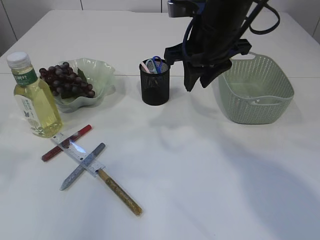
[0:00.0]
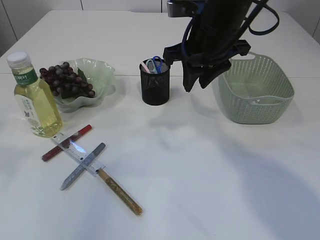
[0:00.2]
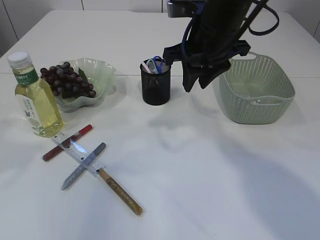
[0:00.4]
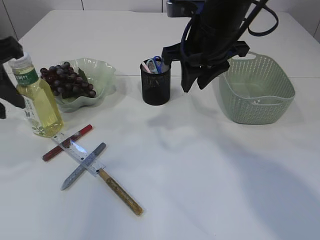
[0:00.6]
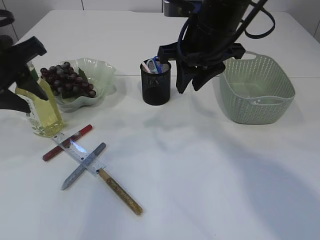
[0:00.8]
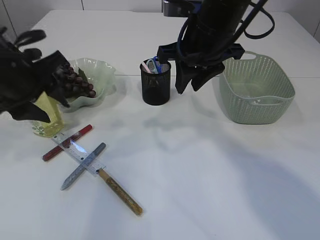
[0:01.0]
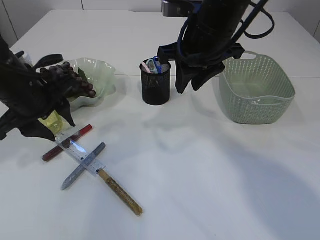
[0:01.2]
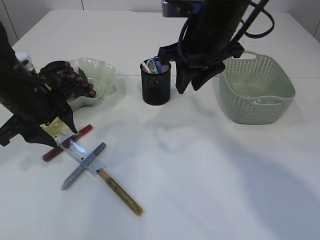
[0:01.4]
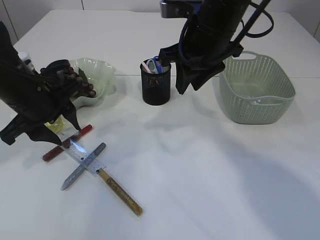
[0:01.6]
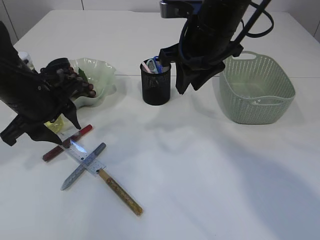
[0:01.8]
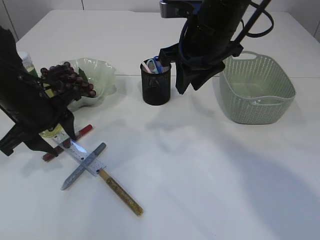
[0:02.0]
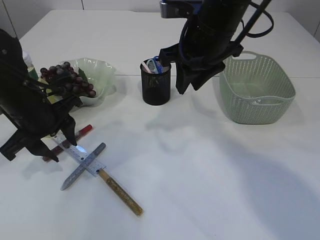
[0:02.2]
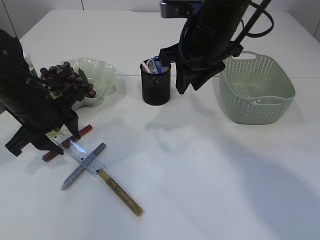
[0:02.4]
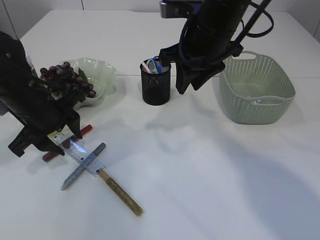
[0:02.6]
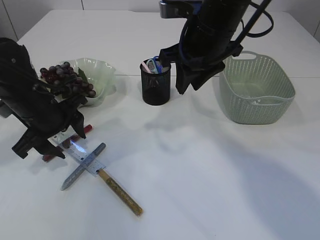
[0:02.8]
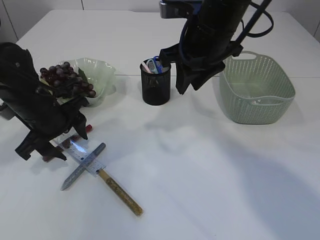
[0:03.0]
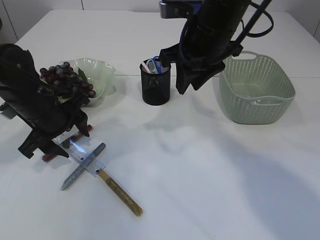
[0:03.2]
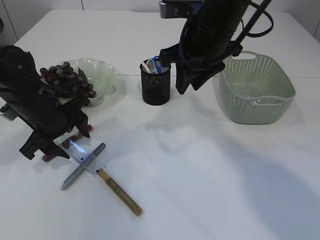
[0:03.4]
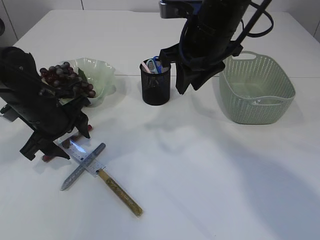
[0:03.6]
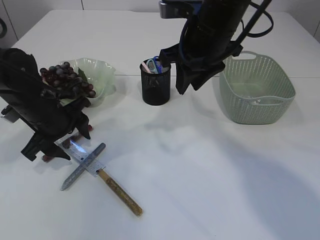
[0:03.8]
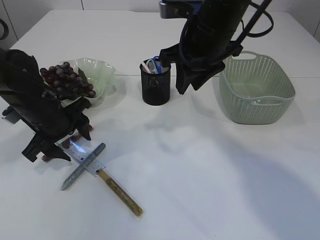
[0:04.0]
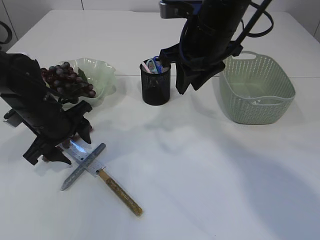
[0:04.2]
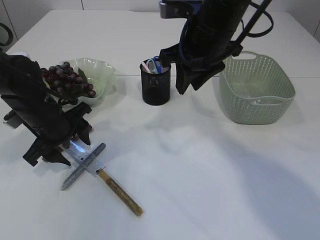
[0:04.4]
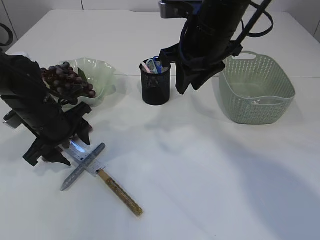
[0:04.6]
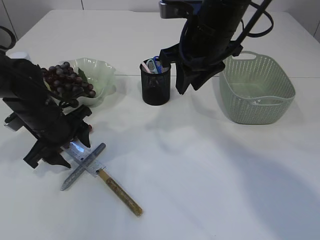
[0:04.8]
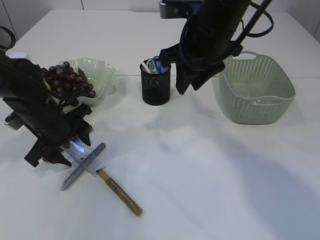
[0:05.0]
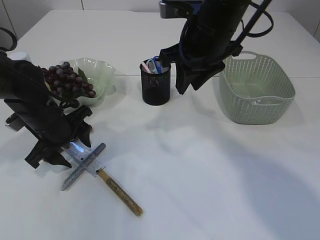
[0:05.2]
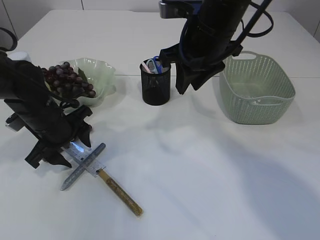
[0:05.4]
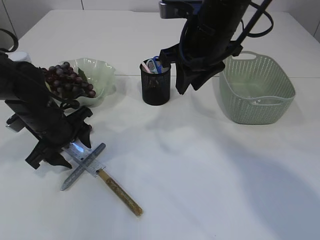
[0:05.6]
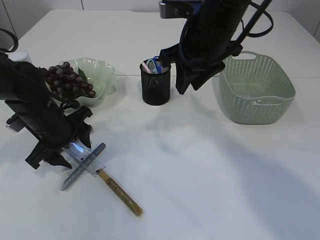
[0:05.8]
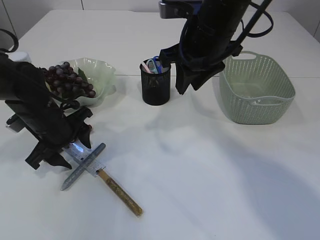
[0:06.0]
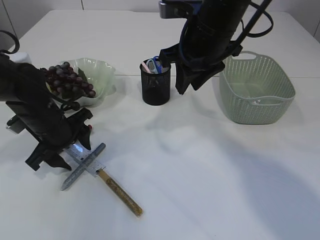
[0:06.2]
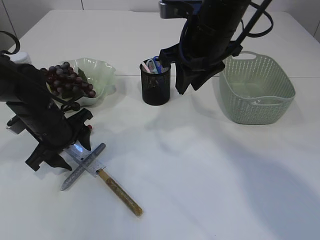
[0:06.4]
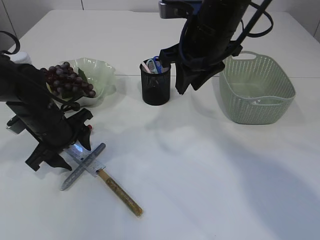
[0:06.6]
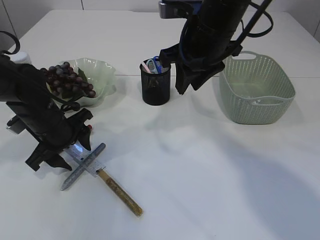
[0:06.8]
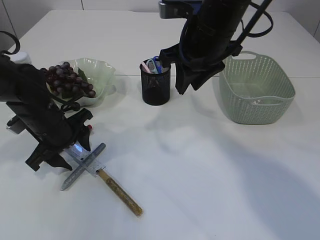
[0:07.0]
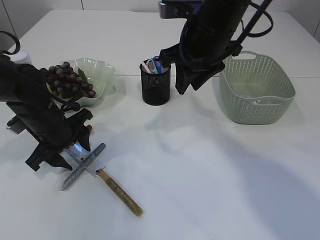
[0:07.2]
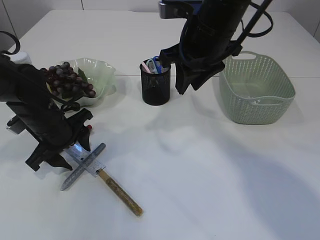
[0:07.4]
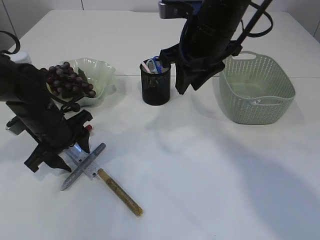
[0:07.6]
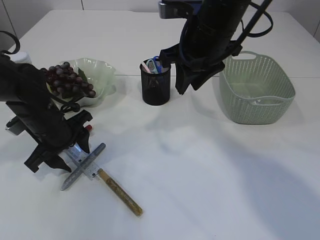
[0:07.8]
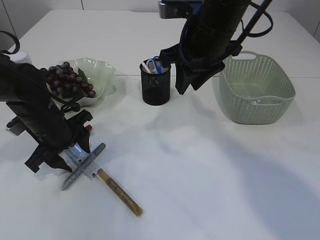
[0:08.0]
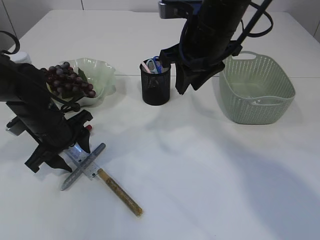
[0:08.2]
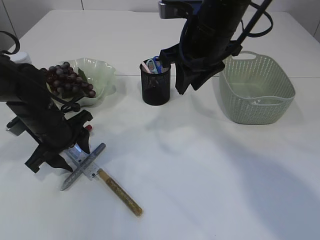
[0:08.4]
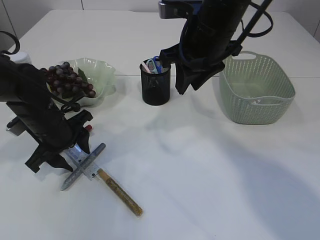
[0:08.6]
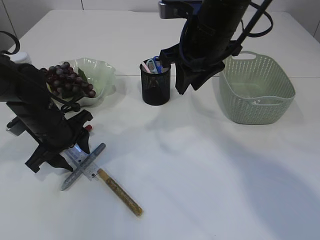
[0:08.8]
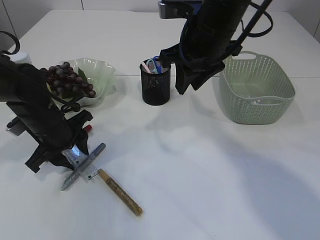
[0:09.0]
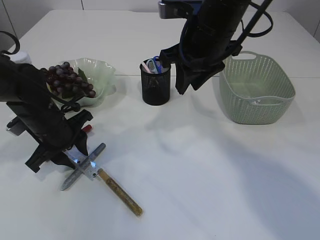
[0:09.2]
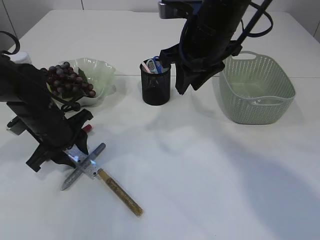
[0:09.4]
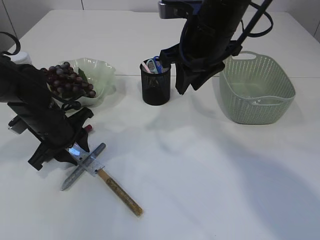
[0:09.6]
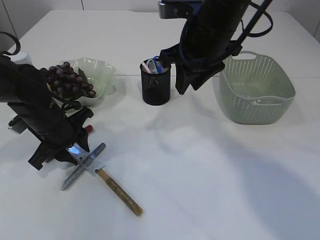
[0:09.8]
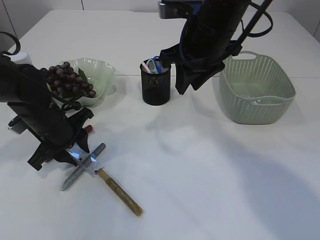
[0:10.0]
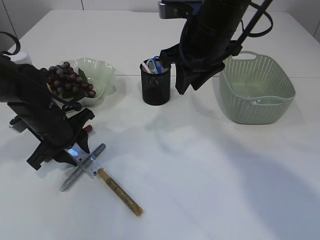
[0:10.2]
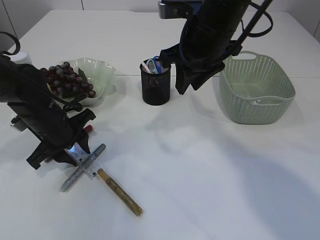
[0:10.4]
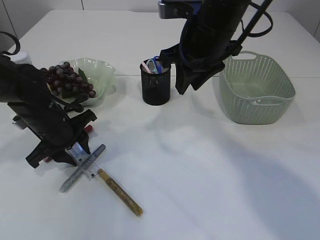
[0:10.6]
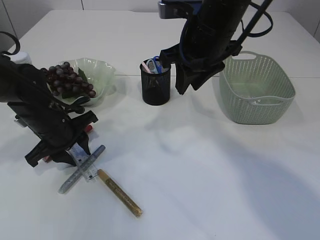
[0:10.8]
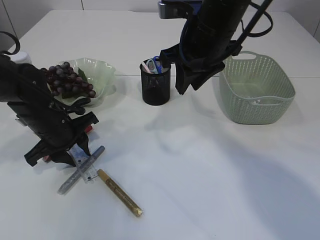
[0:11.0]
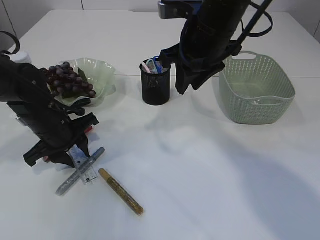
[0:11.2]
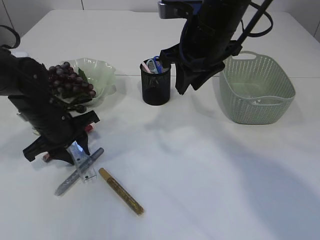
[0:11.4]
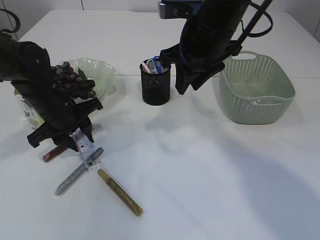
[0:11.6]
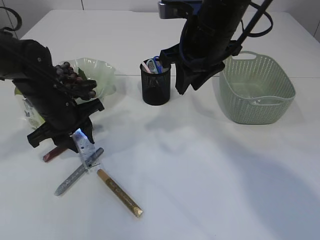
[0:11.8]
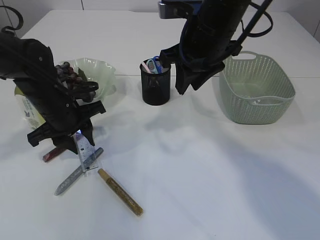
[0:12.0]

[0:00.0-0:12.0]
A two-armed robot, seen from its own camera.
0:00.0 to 0:01.6: The left gripper goes about 20 cm downward, forward and to the right.
0:01.6 to 0:03.0: The grippers make only small movements.
0:03.0 to 0:04.4: There are only small adjustments of the grippers.
0:04.4 to 0:06.0: Both grippers stay about where they are.
0:06.0 to 0:09.0: The two grippers keep their place.
0:09.0 to 0:10.4: There are only small adjustments of the grippers.

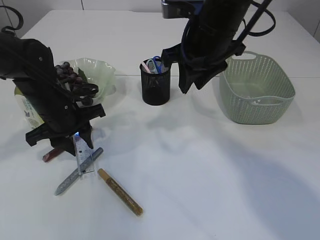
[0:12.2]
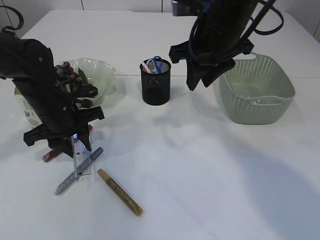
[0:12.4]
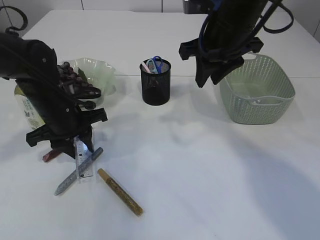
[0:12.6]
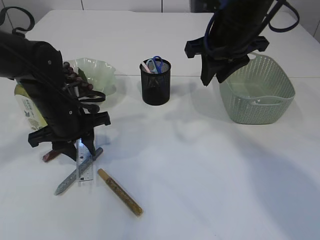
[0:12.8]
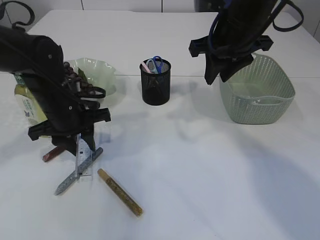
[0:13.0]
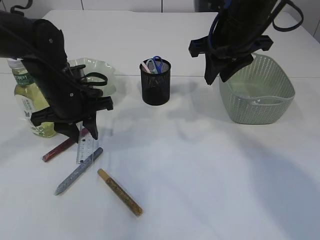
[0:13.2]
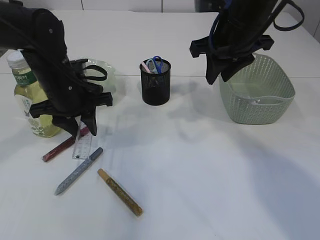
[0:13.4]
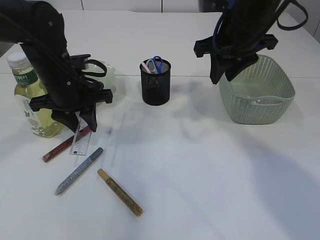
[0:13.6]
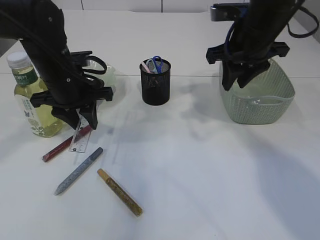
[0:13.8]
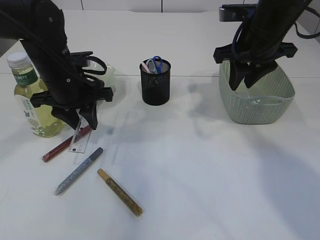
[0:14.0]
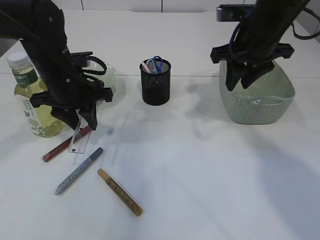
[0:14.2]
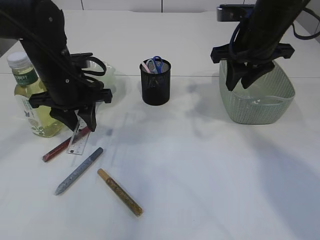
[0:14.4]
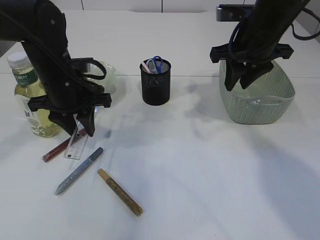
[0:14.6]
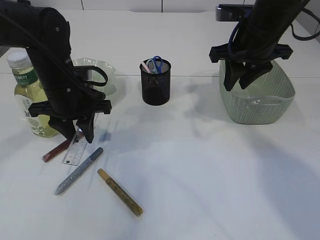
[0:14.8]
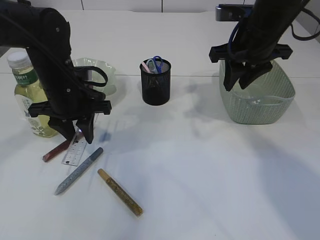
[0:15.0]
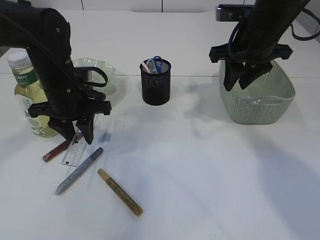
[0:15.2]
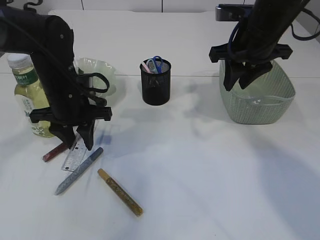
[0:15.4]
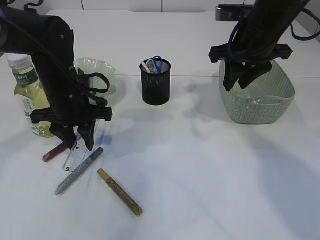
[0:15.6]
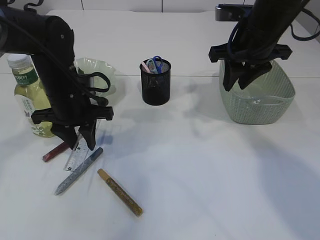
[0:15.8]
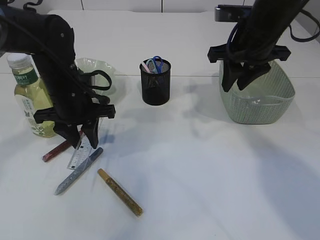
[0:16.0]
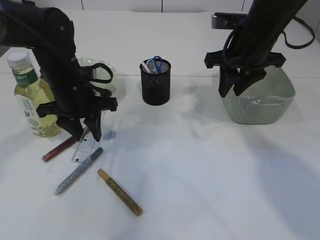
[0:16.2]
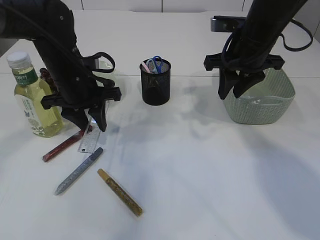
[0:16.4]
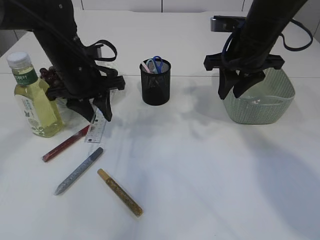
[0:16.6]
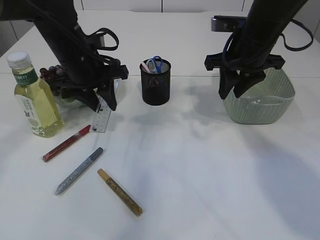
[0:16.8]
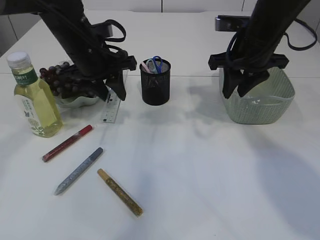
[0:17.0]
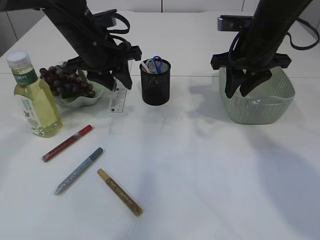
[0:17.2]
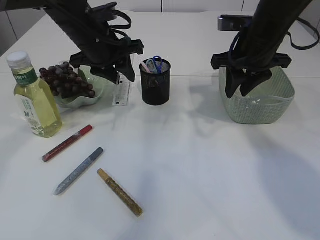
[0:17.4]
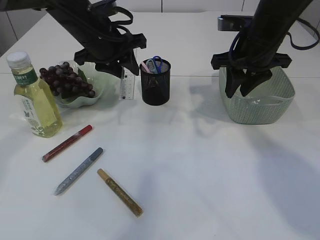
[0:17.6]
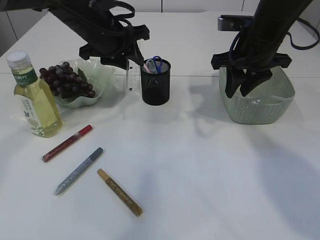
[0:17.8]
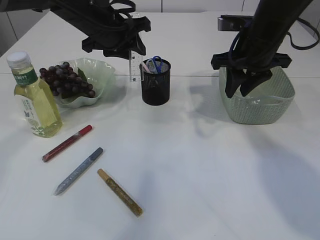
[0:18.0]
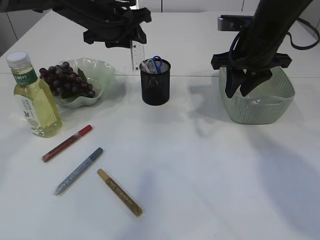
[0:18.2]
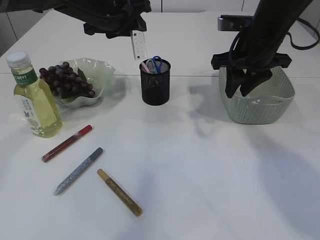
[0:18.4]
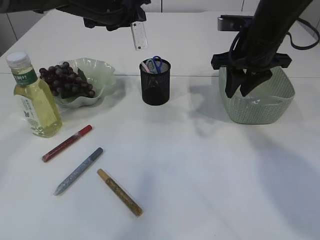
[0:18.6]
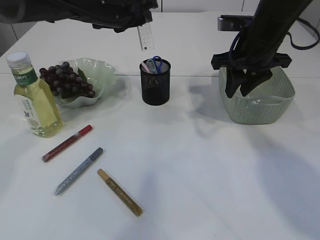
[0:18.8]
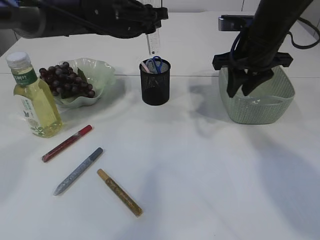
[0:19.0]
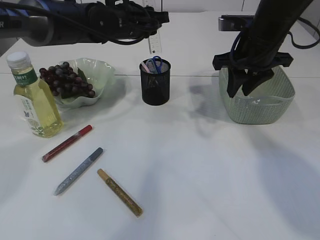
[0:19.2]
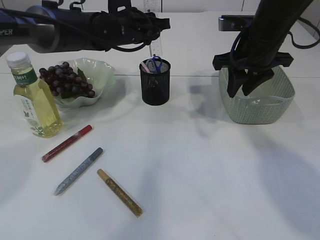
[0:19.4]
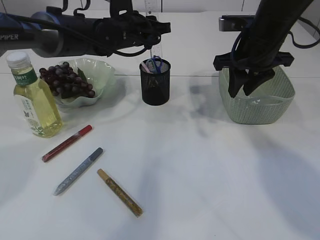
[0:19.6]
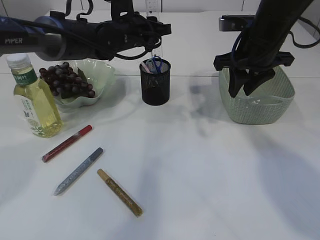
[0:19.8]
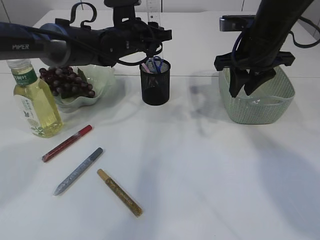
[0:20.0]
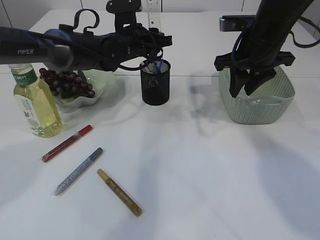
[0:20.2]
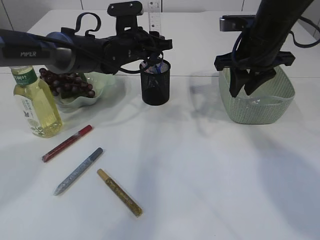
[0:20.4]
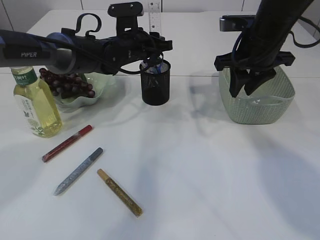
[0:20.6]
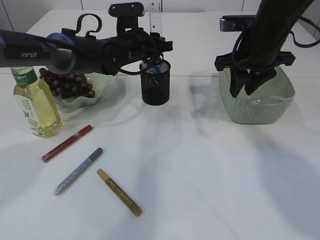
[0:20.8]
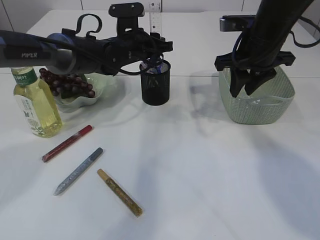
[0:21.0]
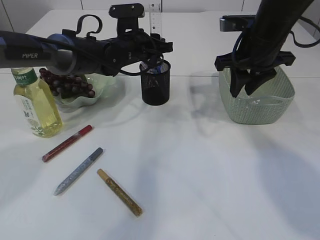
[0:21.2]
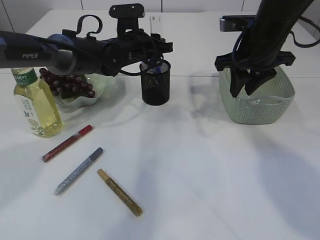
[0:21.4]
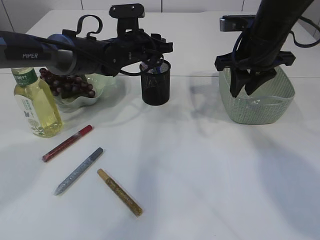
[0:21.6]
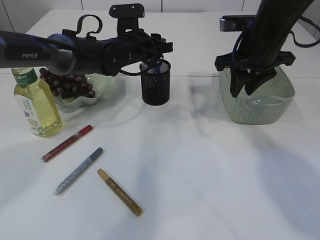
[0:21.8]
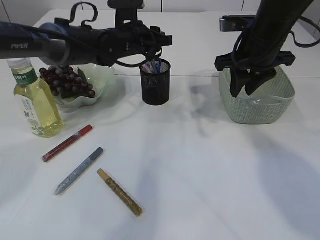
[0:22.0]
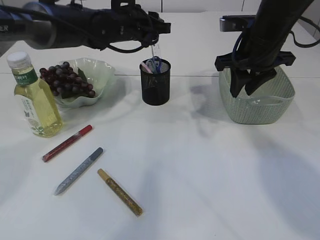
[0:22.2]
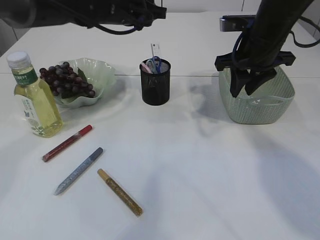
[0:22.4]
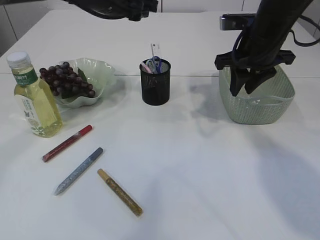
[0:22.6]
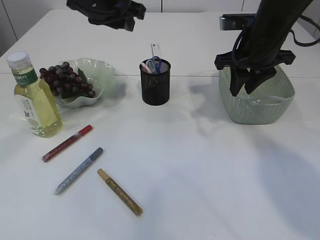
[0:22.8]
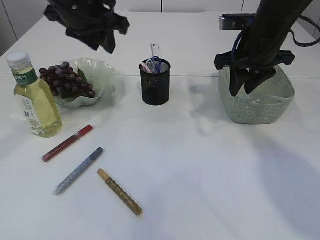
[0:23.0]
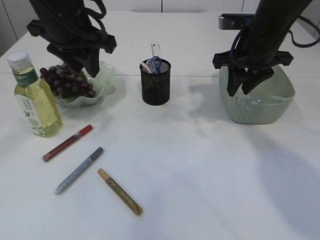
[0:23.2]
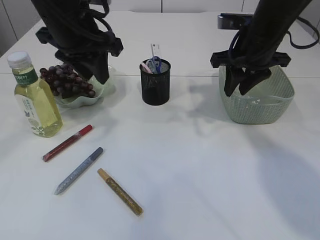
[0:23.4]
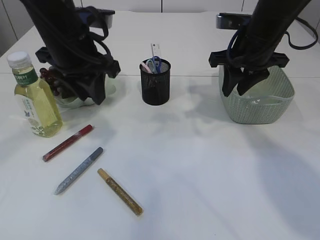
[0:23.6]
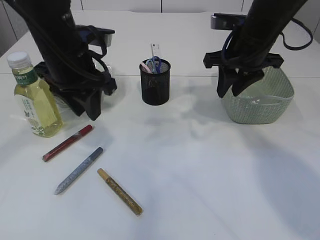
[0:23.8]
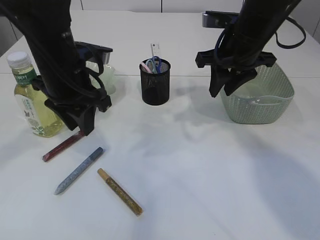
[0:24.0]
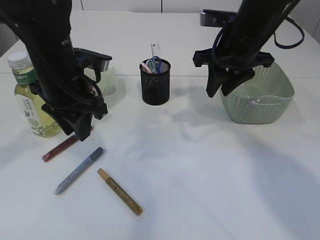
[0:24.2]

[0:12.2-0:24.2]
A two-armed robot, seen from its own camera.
Step, 0:12.2 to 0:16.6: pick up the ruler.
Step, 0:16.8 to 0:22.2: Place the ruler into the pen holder.
0:12.2 to 0:13.8: The left gripper heads upward, covering some 5 cm. Meanwhile the right gripper shifts some 10 cm to the right.
0:13.8 to 0:16.6: The grippers stay close to where they were, moving slightly.
0:16.6 to 0:18.2: The left gripper goes some 10 cm upward and forward.
0:18.2 to 0:19.8: The left gripper moves downward, about 5 cm.
0:19.8 to 0:21.2: The grippers move only a little.
0:21.2 to 0:22.6: The left gripper goes about 10 cm upward.
0:22.6 to 0:24.2: The left gripper is displaced backward, downward and to the left by some 15 cm.
